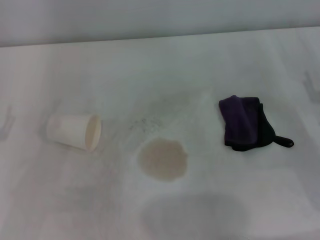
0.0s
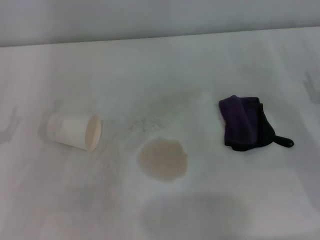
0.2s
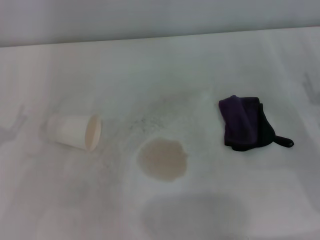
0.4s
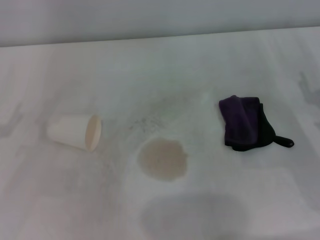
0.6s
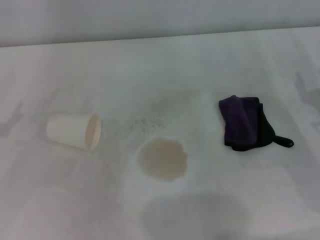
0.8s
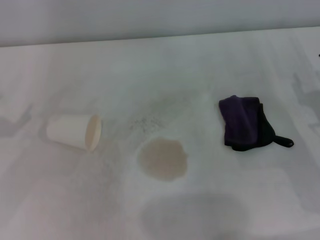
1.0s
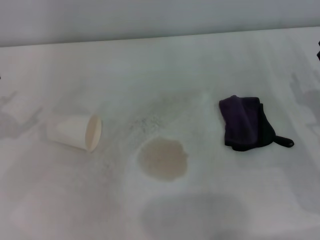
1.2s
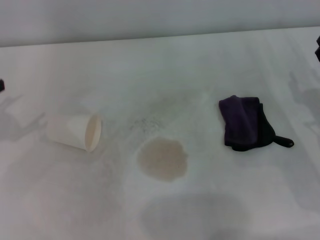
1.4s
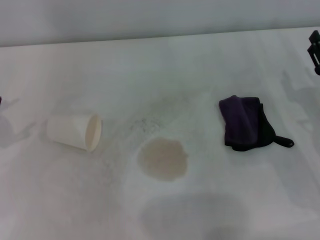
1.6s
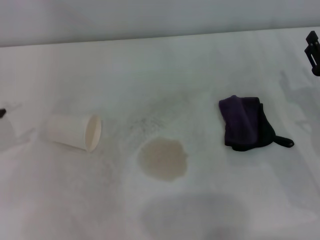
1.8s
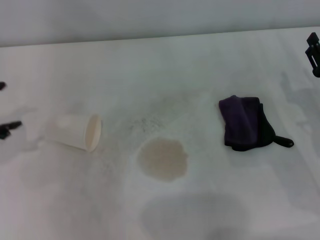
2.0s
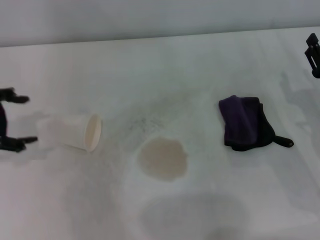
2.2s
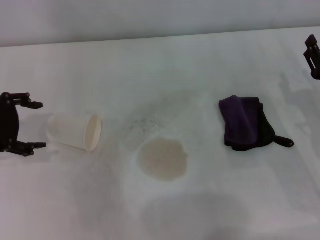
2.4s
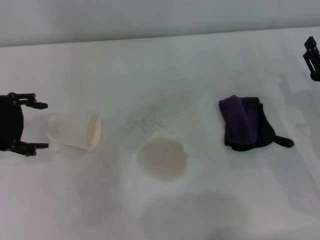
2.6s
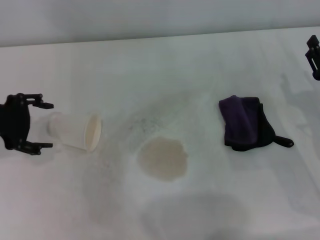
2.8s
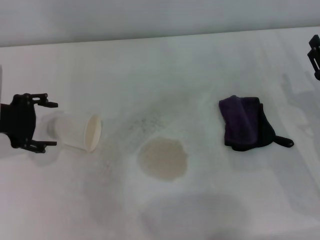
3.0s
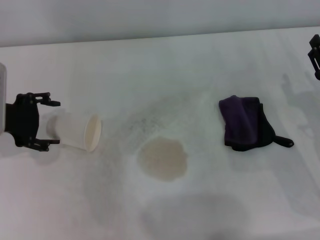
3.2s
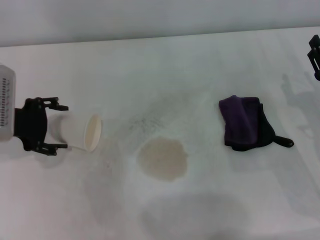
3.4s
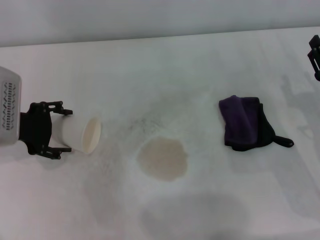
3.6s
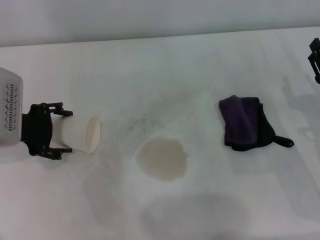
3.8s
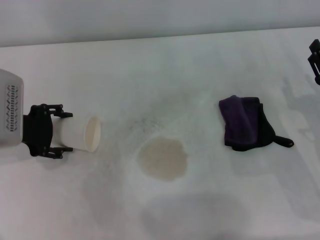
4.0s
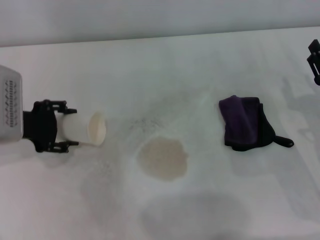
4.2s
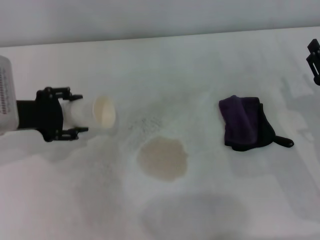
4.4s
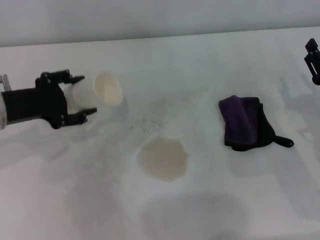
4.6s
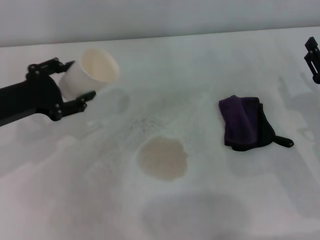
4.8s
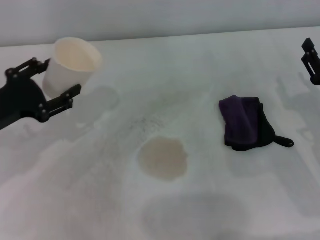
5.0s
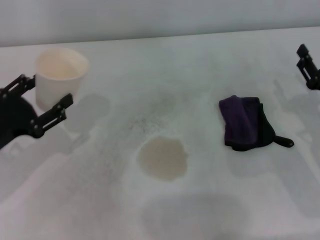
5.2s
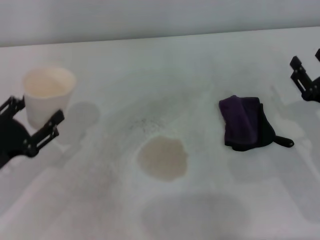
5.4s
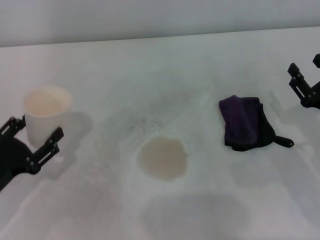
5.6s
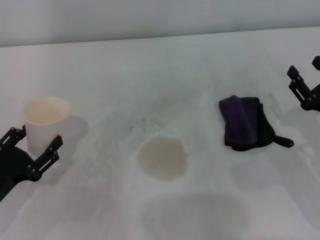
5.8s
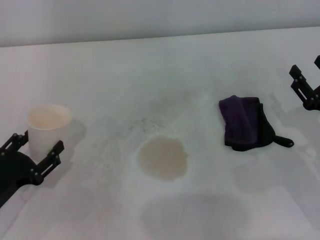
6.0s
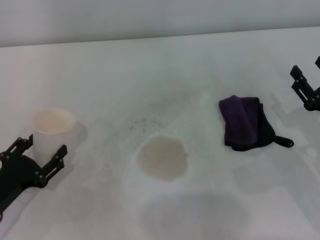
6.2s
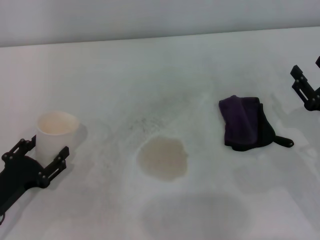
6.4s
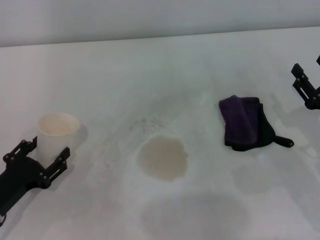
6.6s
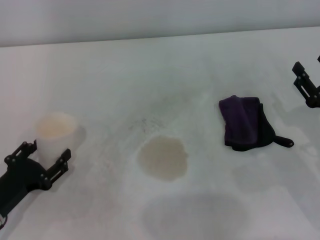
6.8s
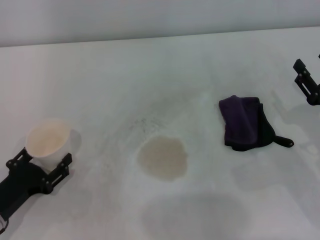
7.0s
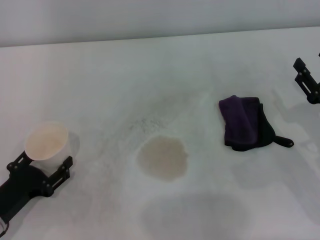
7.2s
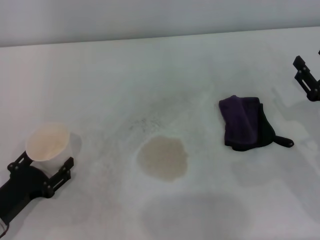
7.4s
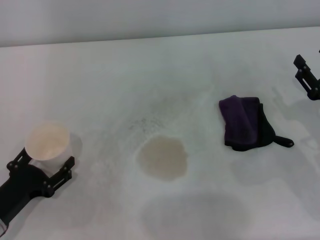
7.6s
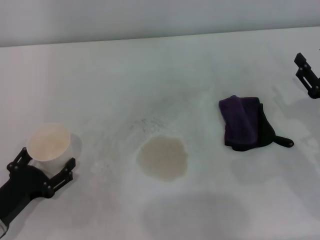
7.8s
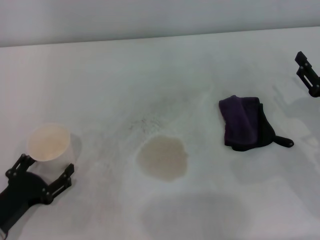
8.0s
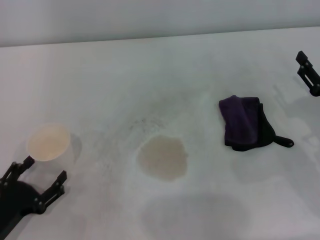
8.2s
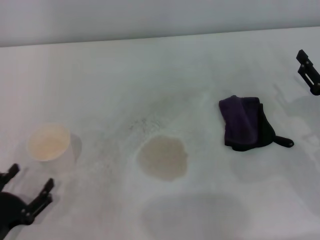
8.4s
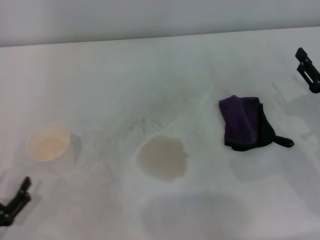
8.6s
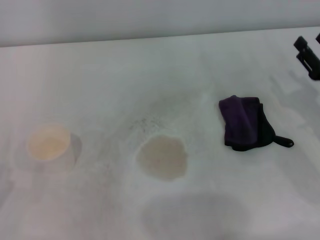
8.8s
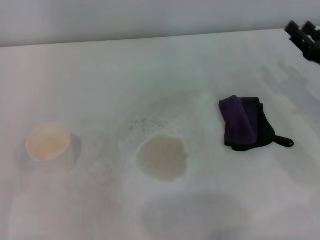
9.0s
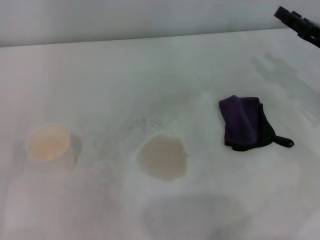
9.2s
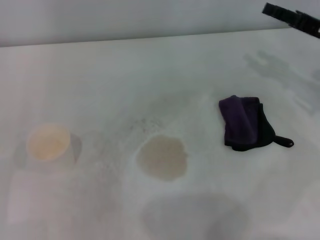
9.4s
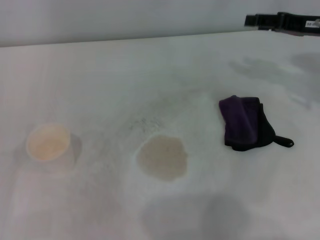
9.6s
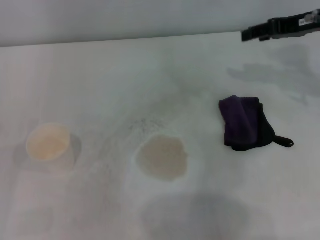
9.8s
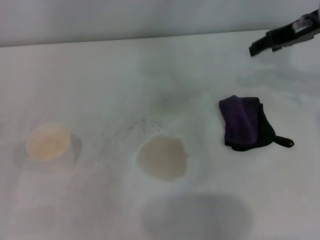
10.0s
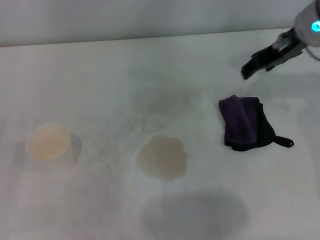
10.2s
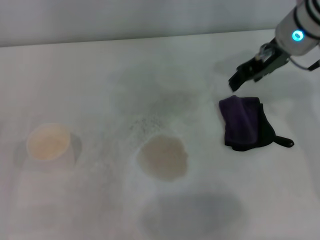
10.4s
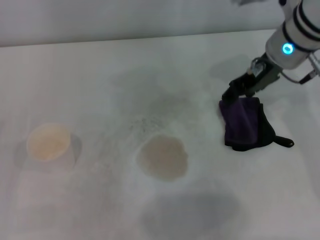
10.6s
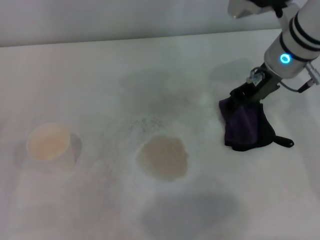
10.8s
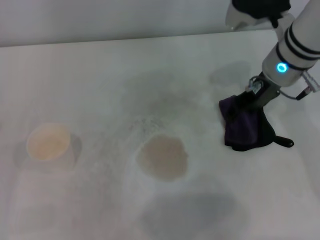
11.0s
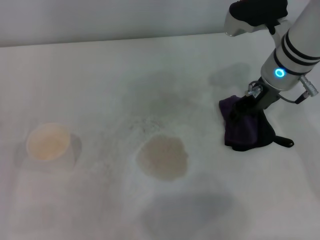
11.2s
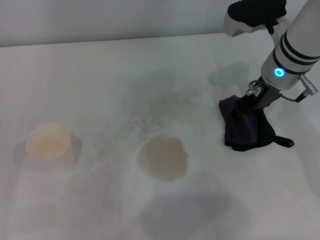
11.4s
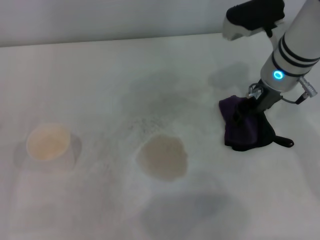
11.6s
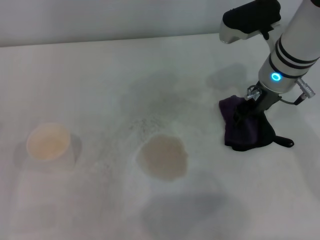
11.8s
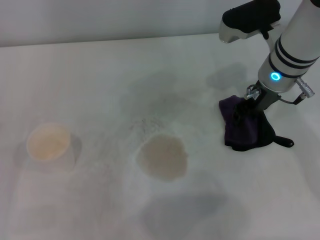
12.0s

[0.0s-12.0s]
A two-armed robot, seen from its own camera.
Step, 0.0s to 4.0s: Grasp the paper cup with the left gripper.
Step, 4.2s to 8.0s: Stand the paper cup upright with the left gripper.
1.6s to 3.0s: The left gripper heads to the right, covering about 10 cm.
3.0s to 4.4s: The left gripper closes up.
4.4s to 6.0s: The left gripper shifts roughly 15 cm backward and downward.
6.0s to 7.6s: There are only small adjustments of the grippers.
7.6s to 9.0s: The right gripper is displaced forward by roughly 5 cm. The left gripper shifts roughly 10 cm to the left and backward, and opens.
9.0s to 10.4s: The right gripper moves upward, to the left and forward, some 20 cm.
10.4s to 12.0s: The right gripper shifts roughly 5 cm downward.

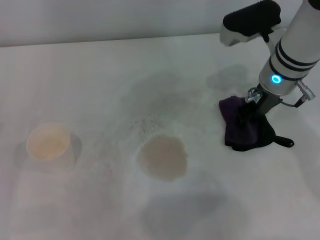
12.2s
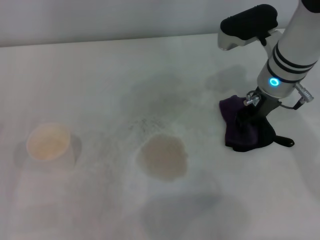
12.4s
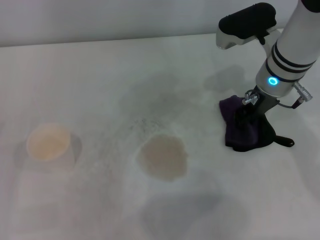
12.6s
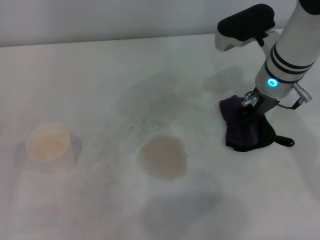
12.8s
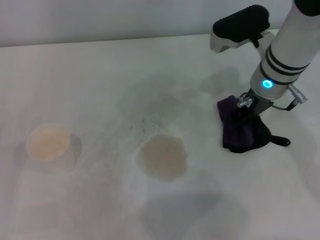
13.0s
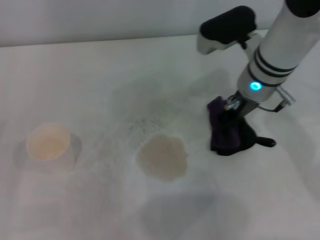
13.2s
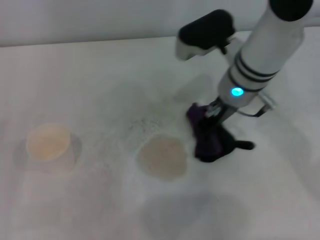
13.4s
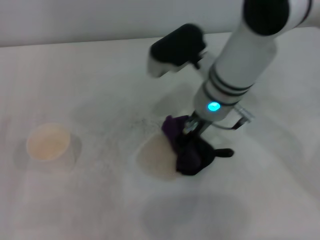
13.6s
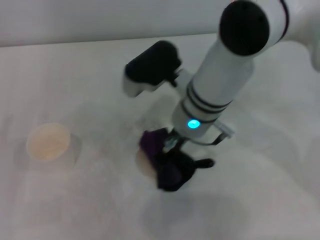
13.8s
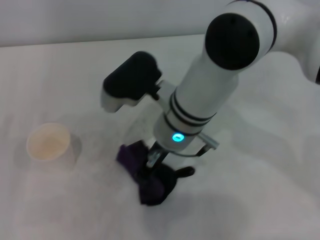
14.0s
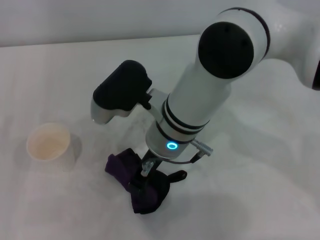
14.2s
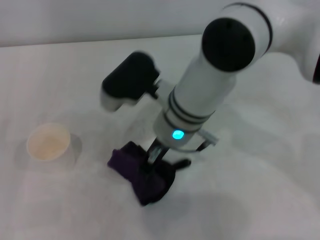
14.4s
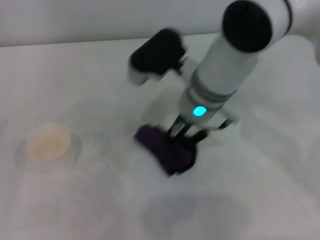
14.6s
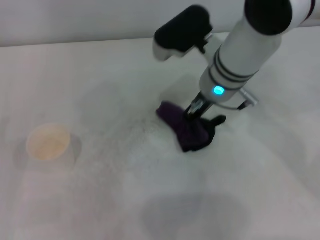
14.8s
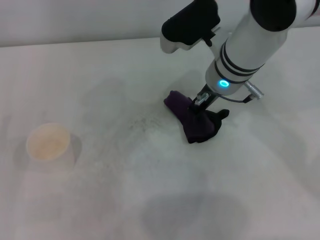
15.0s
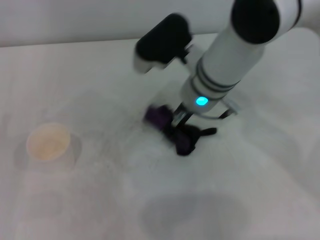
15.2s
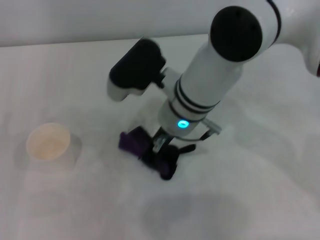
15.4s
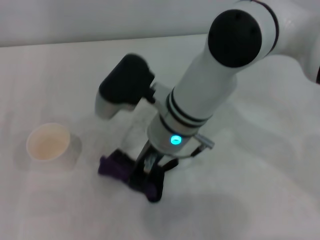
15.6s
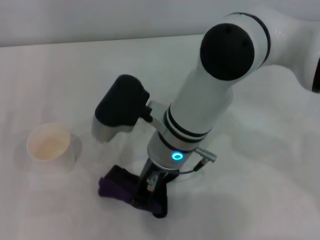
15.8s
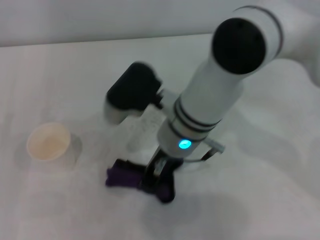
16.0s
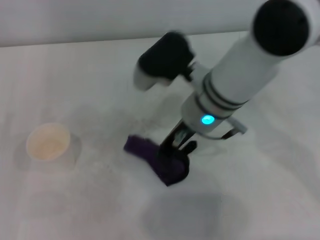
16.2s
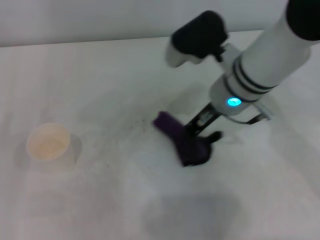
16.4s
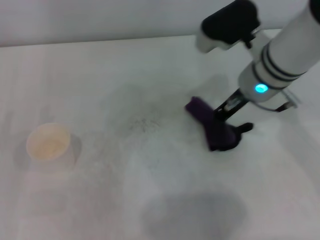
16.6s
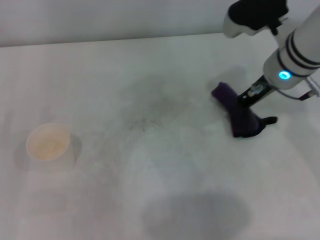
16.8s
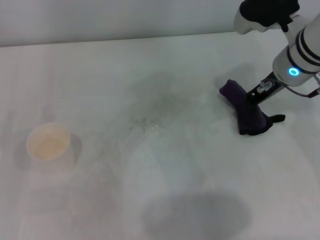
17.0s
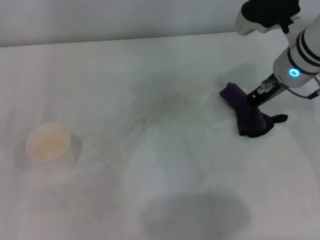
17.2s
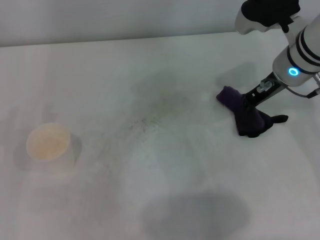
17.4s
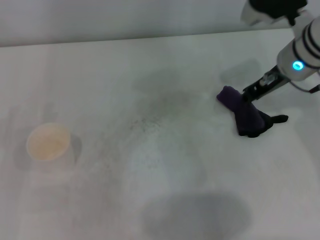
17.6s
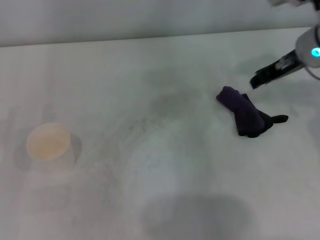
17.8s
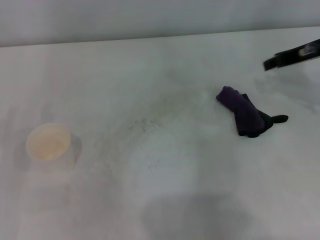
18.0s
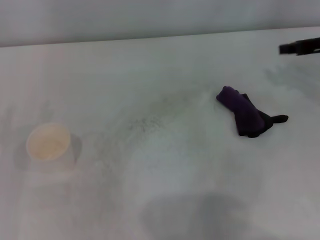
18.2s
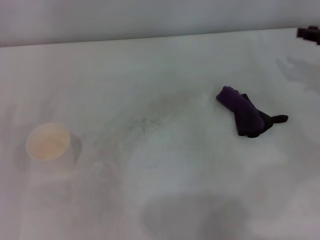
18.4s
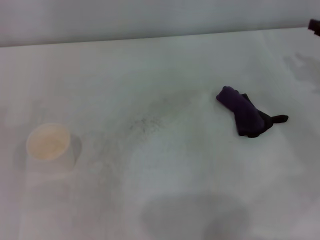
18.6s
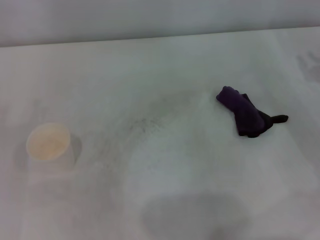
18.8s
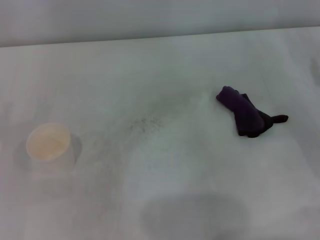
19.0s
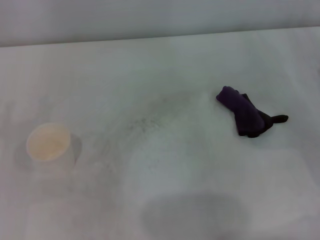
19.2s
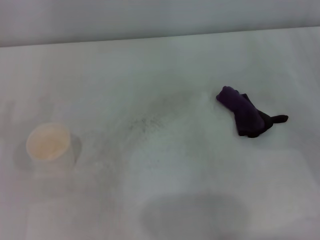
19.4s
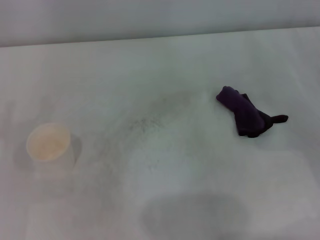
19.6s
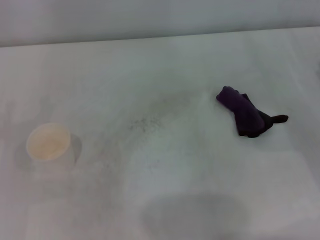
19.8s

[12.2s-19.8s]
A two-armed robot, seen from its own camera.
Step, 13.0s to 16.8s: Wipe the stains off the table with the right gripper.
Step, 17.0s to 17.6s: Place the rag on the table with the right gripper.
12.2s to 13.8s: The right gripper goes approximately 15 cm to the left, and closes its fingers.
13.8s to 15.2s: The right gripper reaches about 5 cm to the right, then returns.
15.2s to 16.8s: The right gripper goes roughly 10 cm to the right.
16.8s to 18.2s: The right gripper travels to the right by approximately 15 cm, and opens its fingers.
18.2s to 19.8s: The right gripper travels downward and backward by roughly 15 cm, and opens up.
